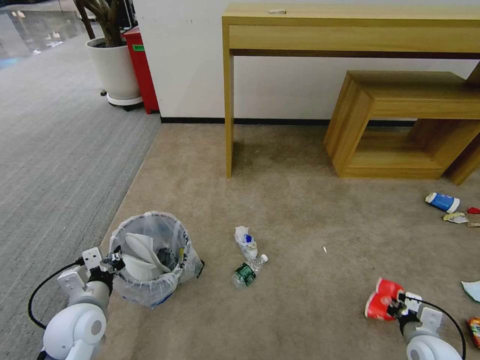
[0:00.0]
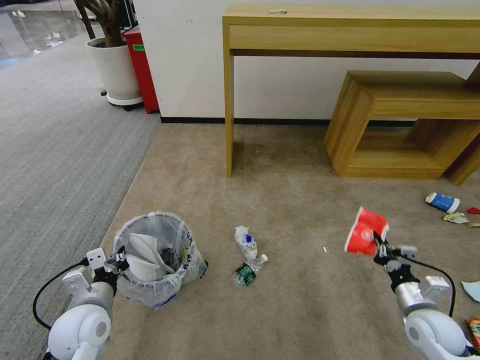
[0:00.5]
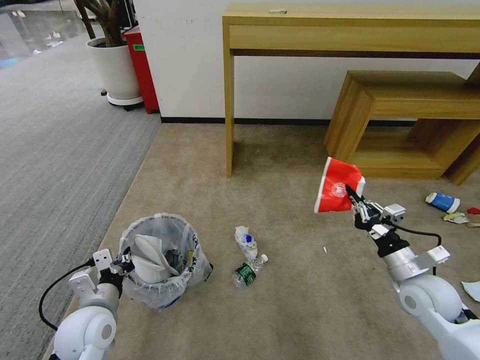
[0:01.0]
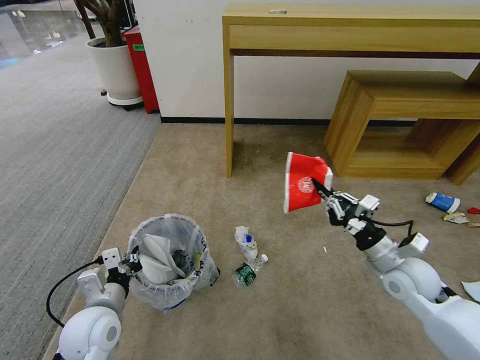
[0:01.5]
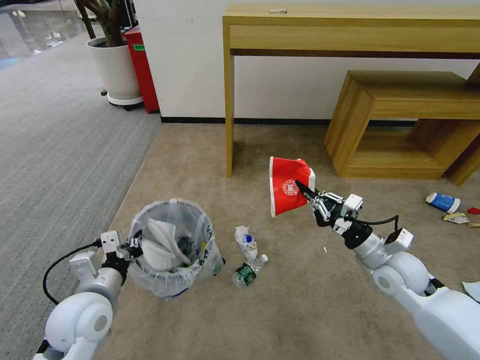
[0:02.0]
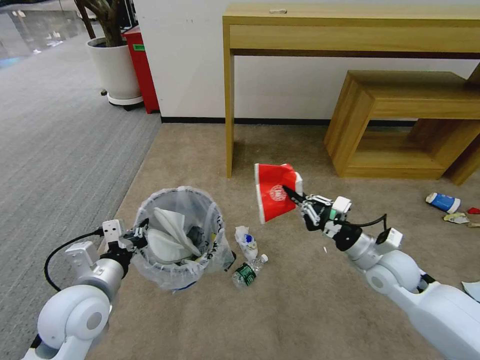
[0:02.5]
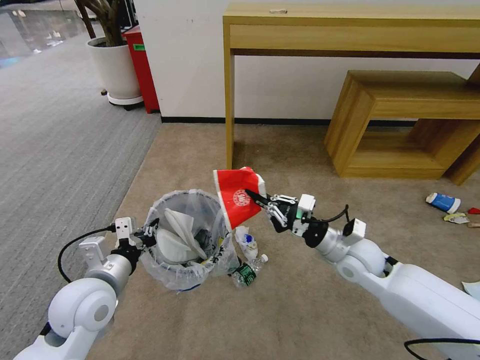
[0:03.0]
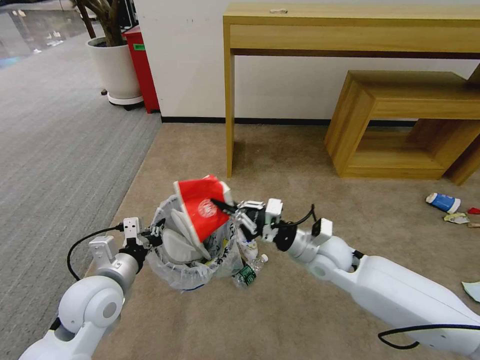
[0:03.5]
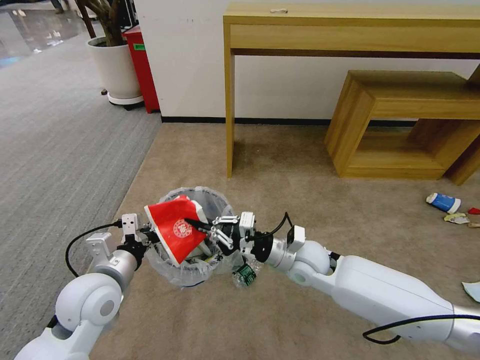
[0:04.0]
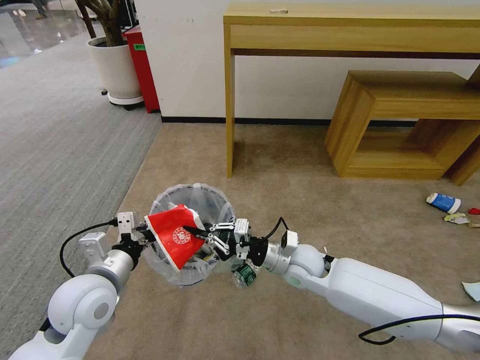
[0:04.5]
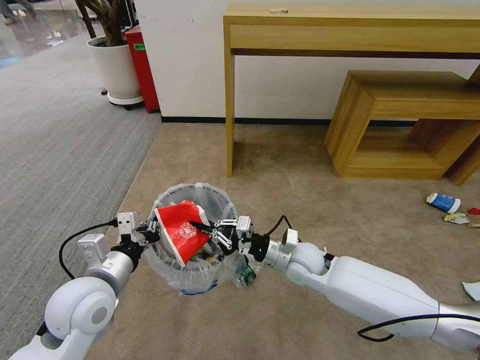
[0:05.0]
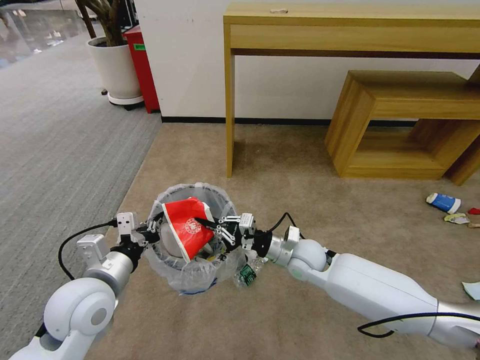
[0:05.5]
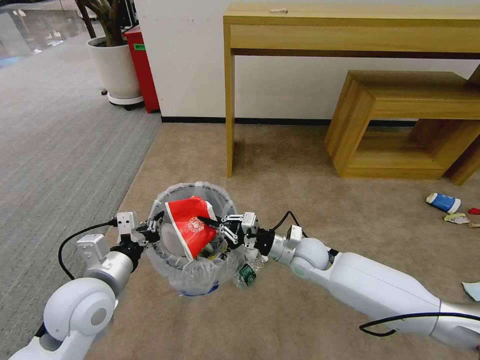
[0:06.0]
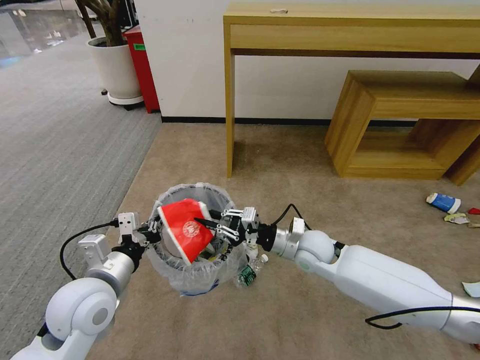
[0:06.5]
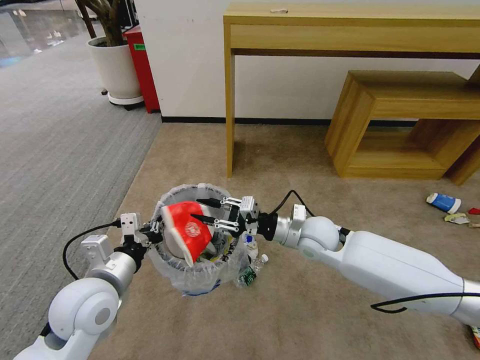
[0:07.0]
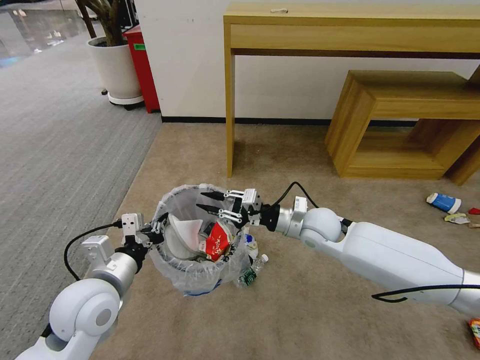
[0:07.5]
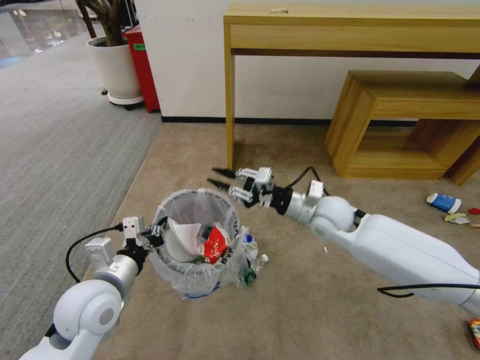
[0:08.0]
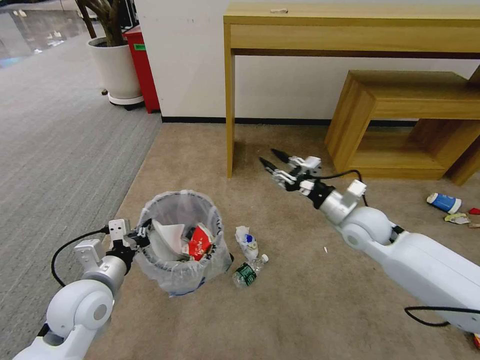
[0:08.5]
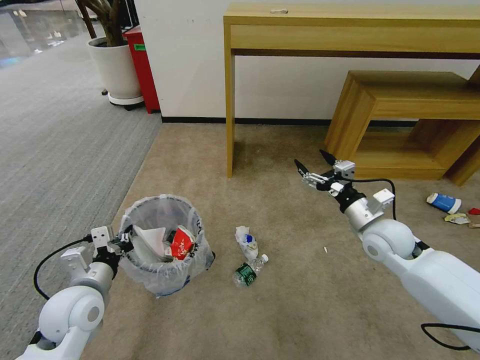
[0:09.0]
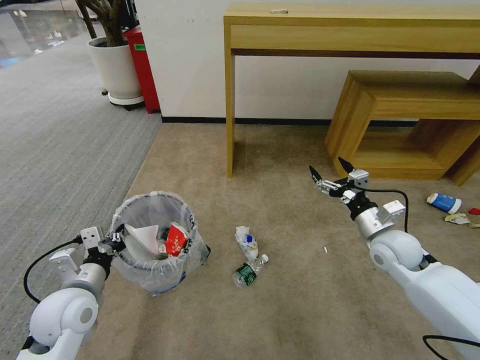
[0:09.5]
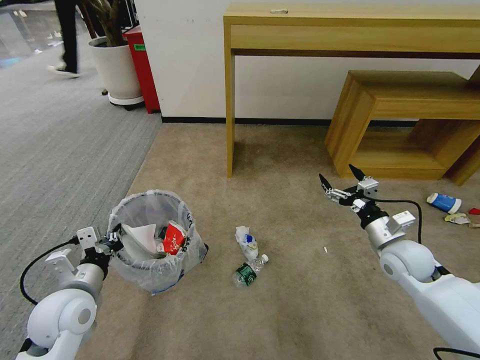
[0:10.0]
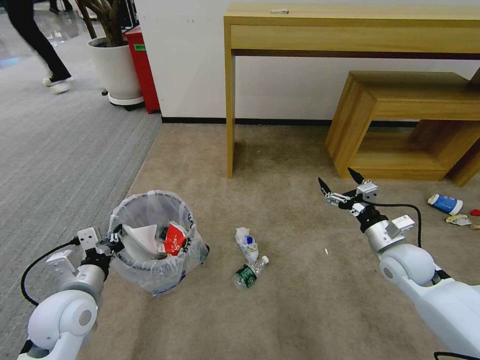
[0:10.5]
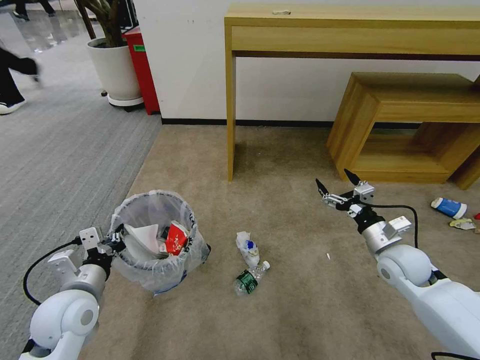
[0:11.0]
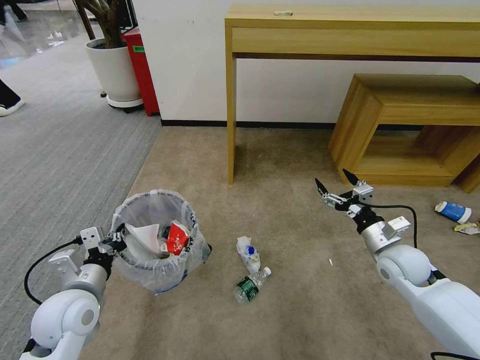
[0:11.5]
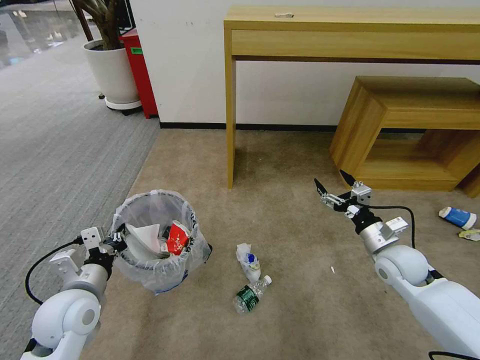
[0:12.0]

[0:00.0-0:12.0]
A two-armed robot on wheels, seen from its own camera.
Task of the whole recording: Pick up the trash bin and place the garbage on the floor into it.
0:00.0 to 0:02.0: The left gripper ends up some 5 cm from where it was. The right gripper goes roughly 25 cm upward, forward and to the left.
0:02.0 to 0:04.0: The right gripper heads to the left, covering roughly 20 cm.
0:04.0 to 0:06.0: The right gripper shifts by about 5 cm.
0:06.0 to 0:08.0: The right gripper shifts some 10 cm upward.
0:08.0 to 0:10.0: The right gripper travels to the right, backward and downward by about 20 cm, and opens its fingers. The left gripper heads to the left, covering roughly 5 cm.

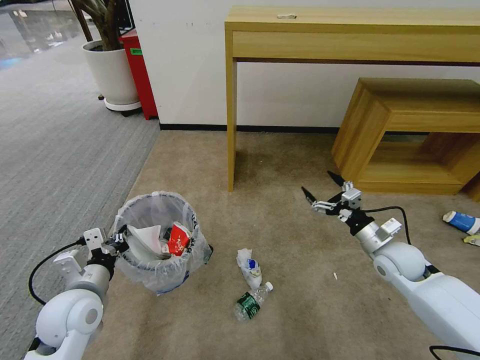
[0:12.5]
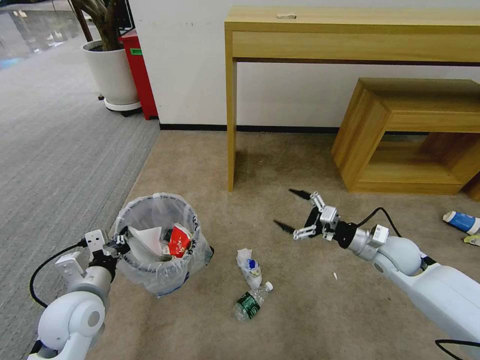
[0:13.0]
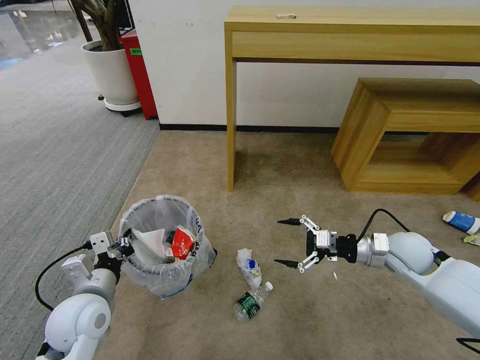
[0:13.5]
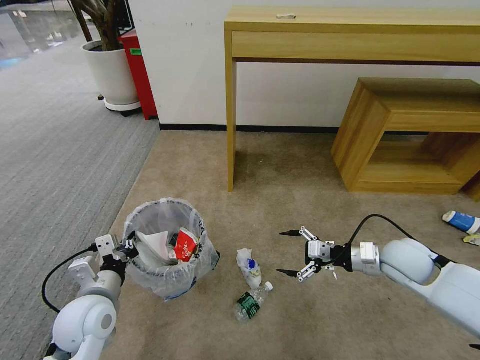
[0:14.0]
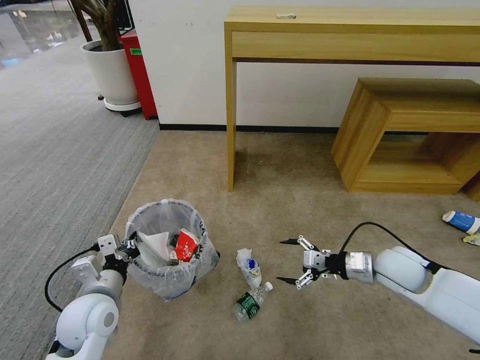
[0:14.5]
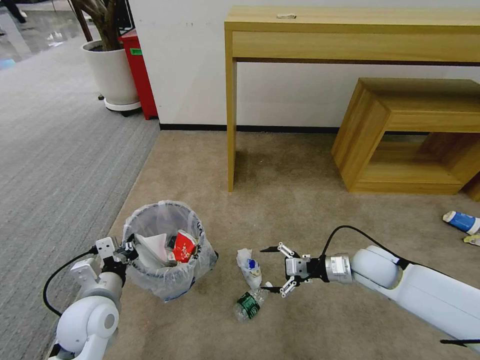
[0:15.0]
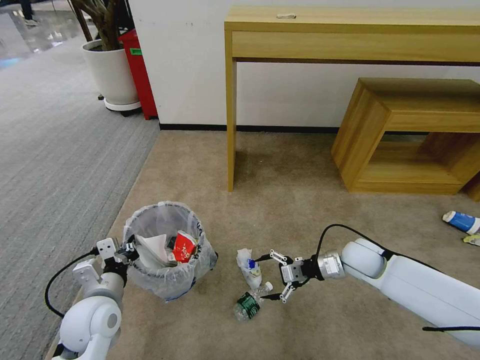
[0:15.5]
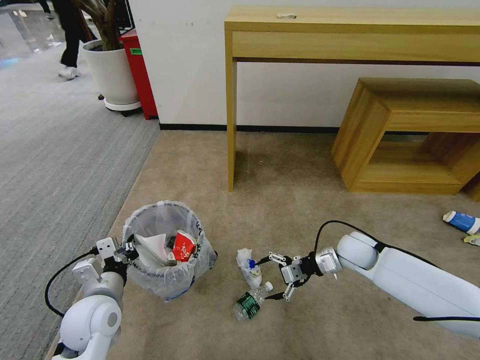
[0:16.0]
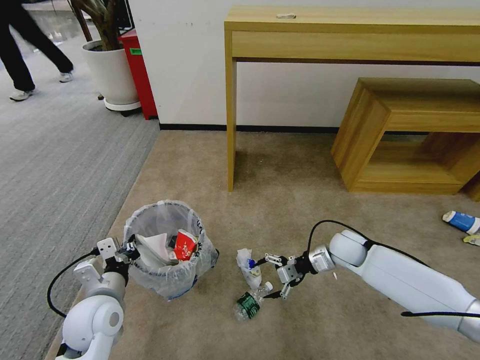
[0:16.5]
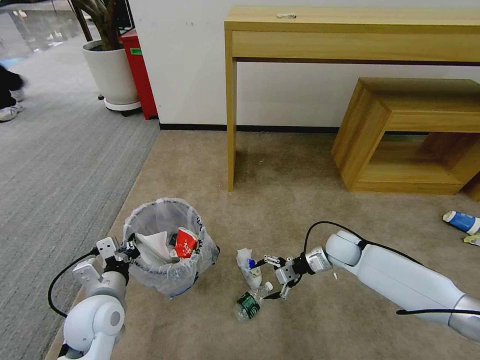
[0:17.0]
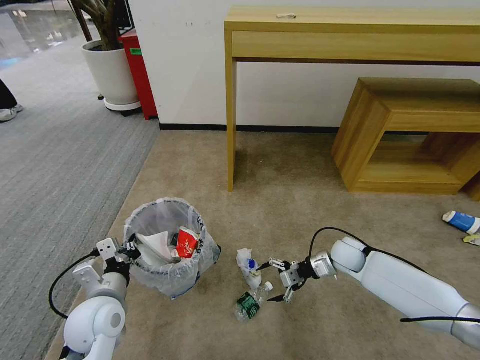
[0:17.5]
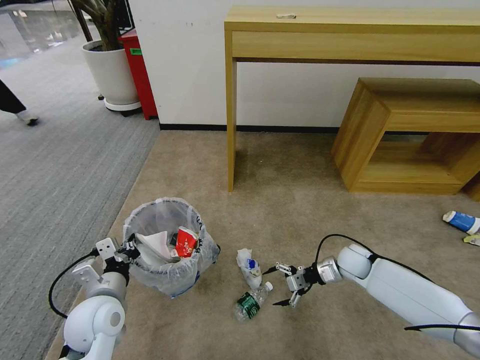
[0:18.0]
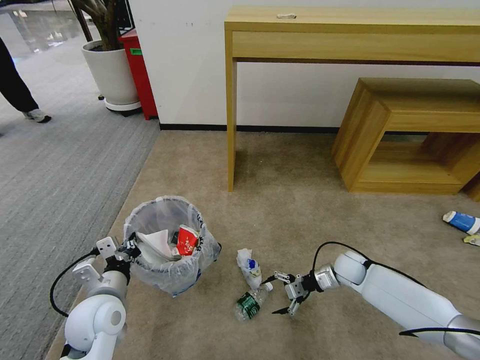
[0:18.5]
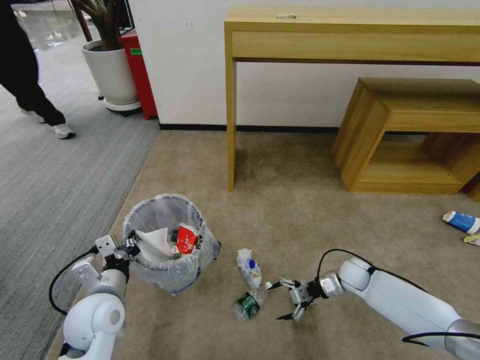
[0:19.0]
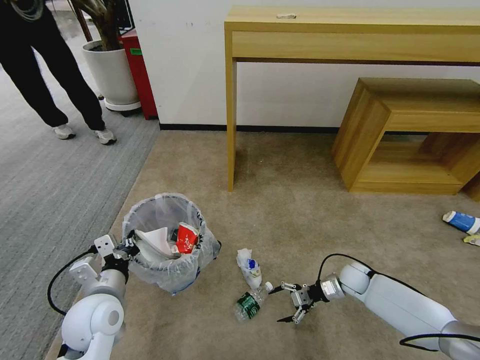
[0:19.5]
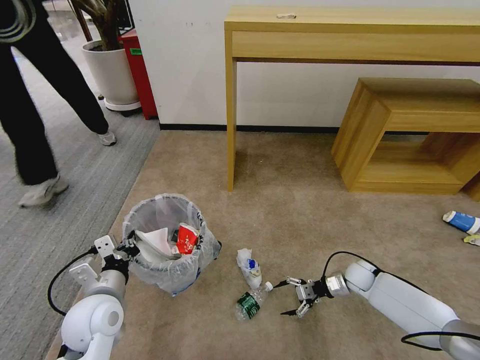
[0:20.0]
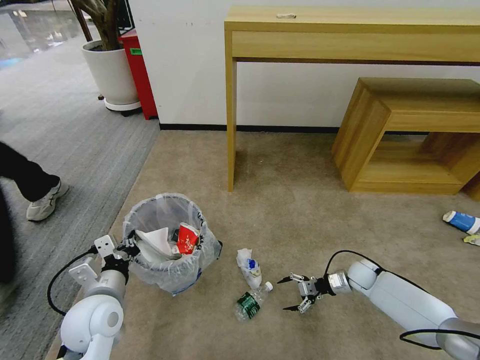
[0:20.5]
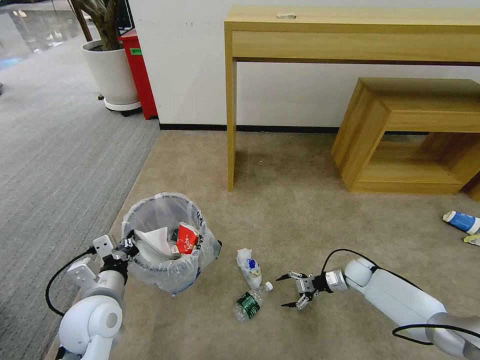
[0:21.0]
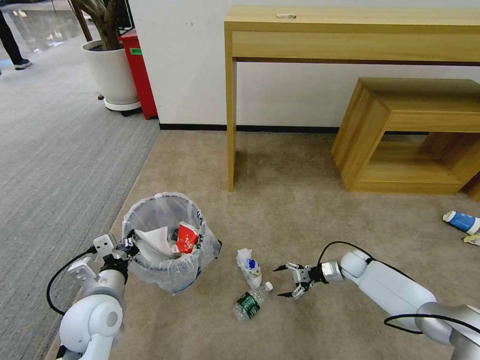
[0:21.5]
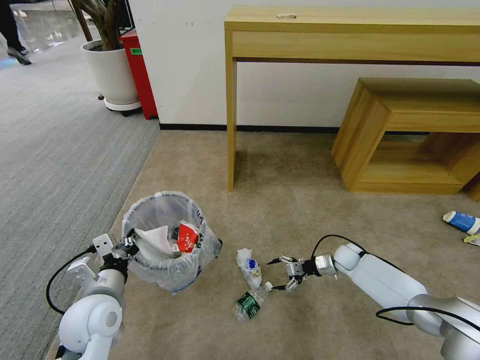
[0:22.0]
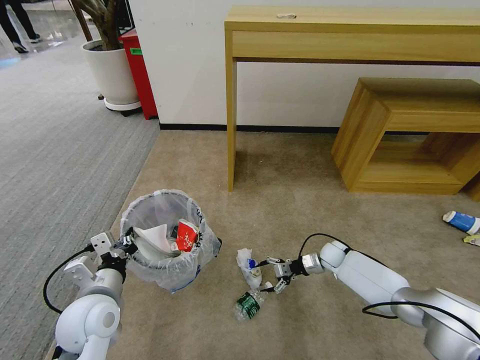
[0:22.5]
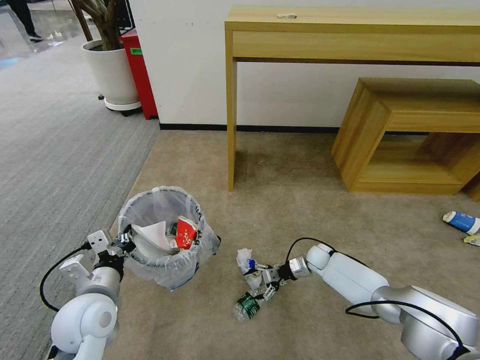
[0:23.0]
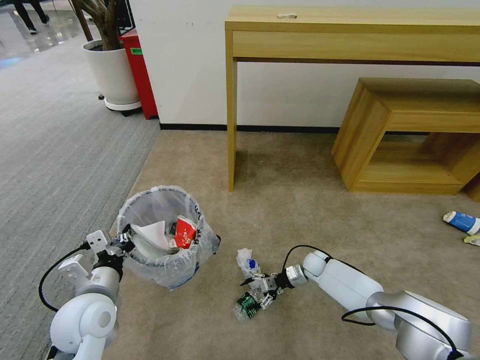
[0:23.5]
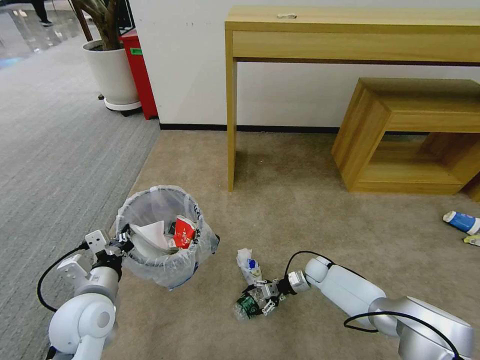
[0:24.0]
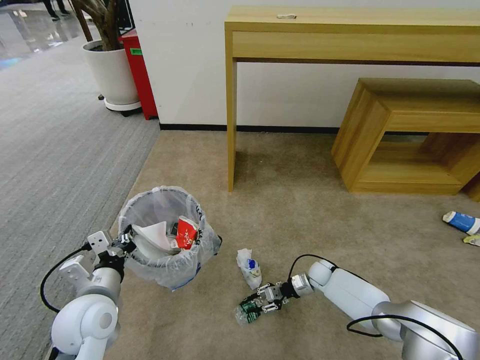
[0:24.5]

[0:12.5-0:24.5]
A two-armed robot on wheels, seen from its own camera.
Task of the whole recording: Pick up the trash bin and place the garbage on the floor into it.
0:14.5 to 0:16.5: The right gripper is displaced forward and downward by roughly 10 cm.
0:16.5 to 0:18.5: The right gripper heads downward, covering approximately 10 cm.
0:18.5 to 0:20.5: The right gripper shifts approximately 10 cm to the right and downward.
0:20.5 to 0:22.5: The right gripper travels to the left and forward by approximately 10 cm.
0:22.5 to 0:24.5: The right gripper shifts roughly 5 cm downward, and closes up.

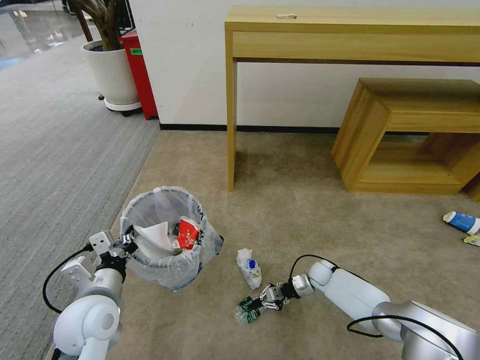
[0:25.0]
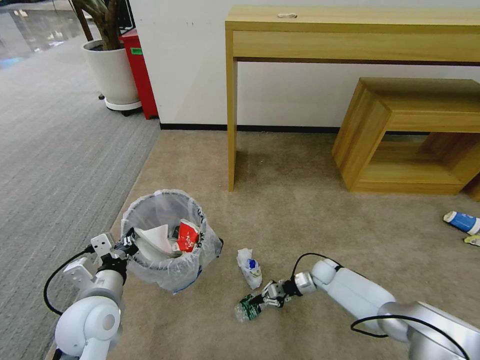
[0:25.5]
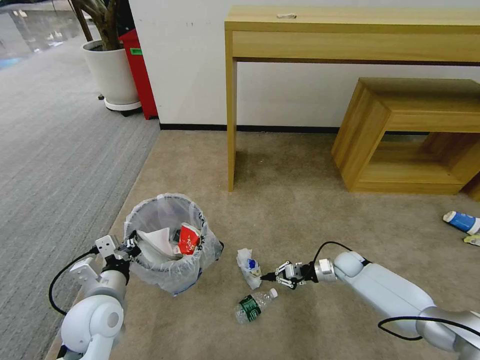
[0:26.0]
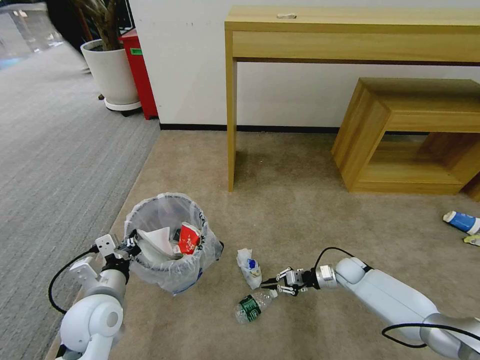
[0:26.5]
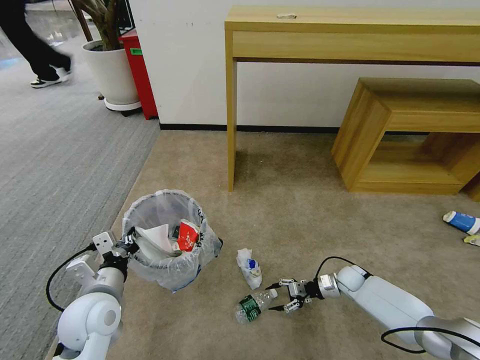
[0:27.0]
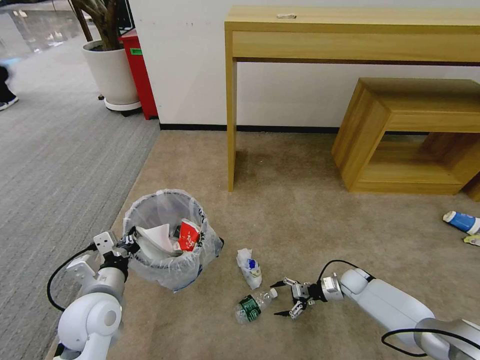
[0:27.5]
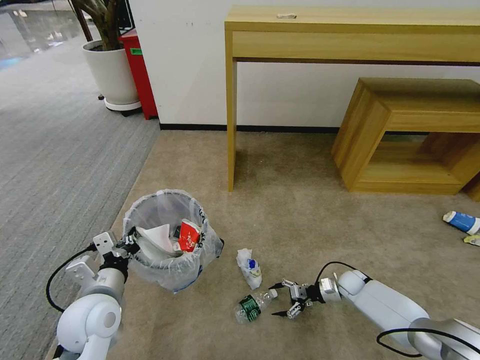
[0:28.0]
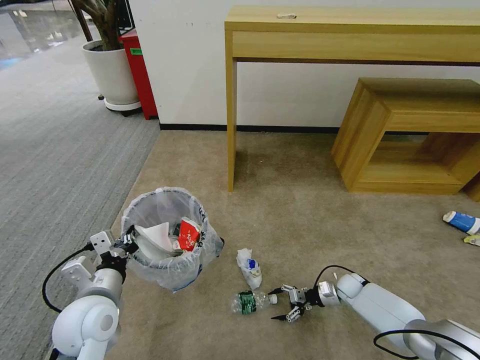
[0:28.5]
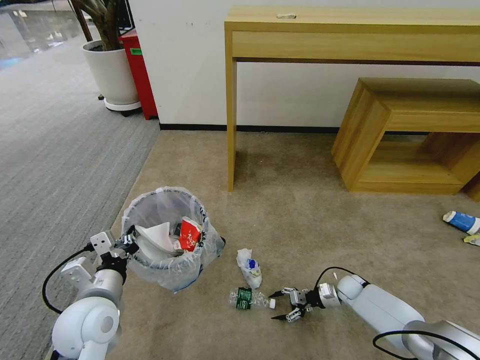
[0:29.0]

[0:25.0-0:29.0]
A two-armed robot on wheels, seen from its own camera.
Task of the whole recording: Pick up the trash bin and place the garbage on the floor into it.
0:25.0 to 0:27.0: The right gripper shifts roughly 10 cm to the right, and opens up.
0:27.0 to 0:29.0: There are only small adjustments of the grippers.
